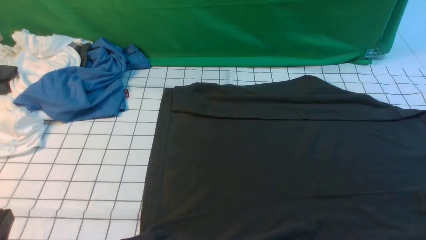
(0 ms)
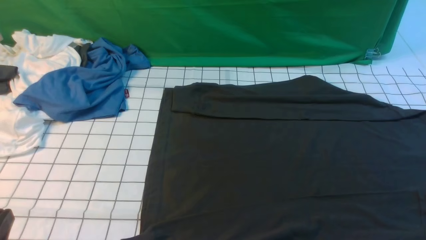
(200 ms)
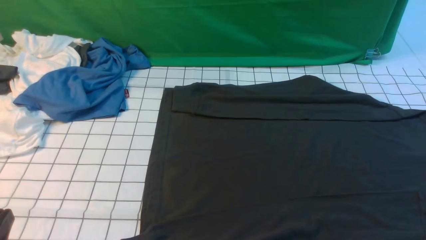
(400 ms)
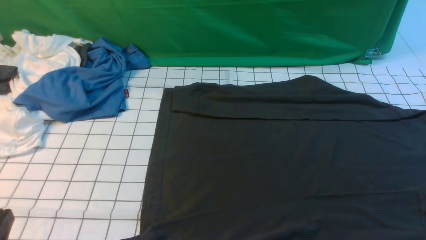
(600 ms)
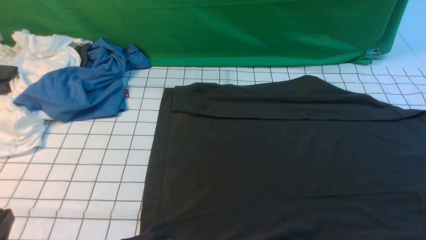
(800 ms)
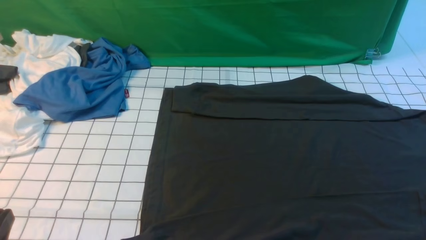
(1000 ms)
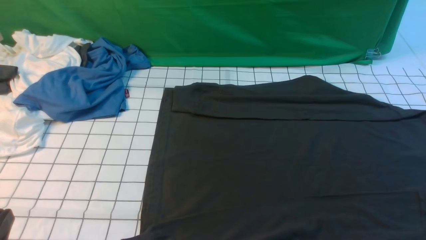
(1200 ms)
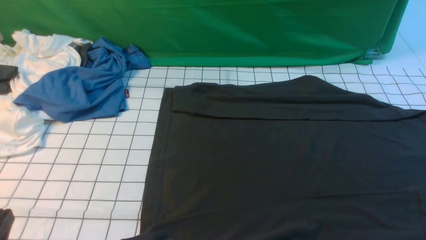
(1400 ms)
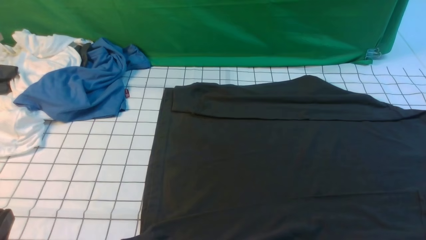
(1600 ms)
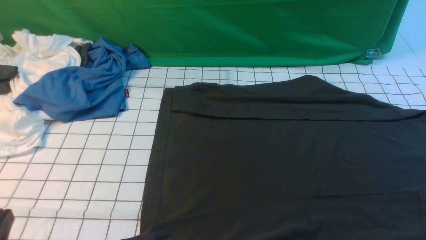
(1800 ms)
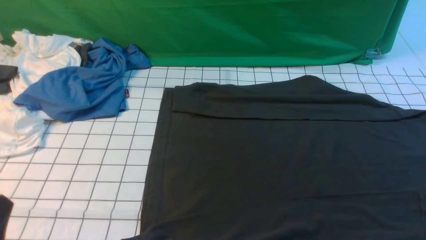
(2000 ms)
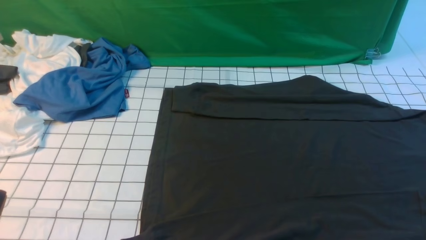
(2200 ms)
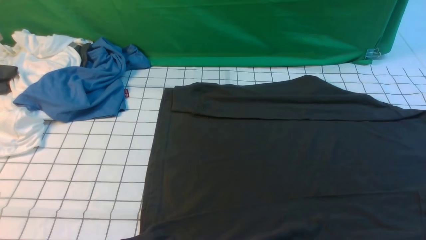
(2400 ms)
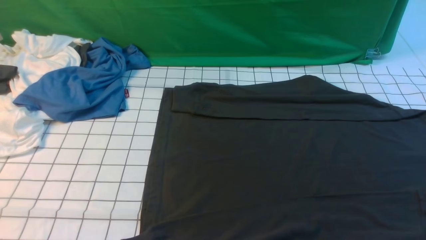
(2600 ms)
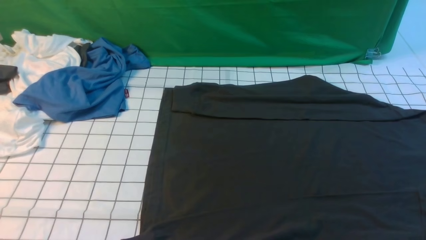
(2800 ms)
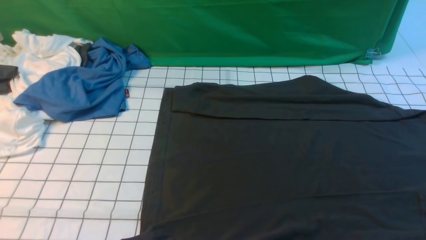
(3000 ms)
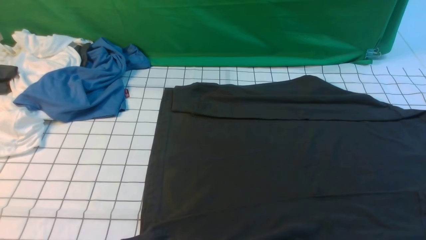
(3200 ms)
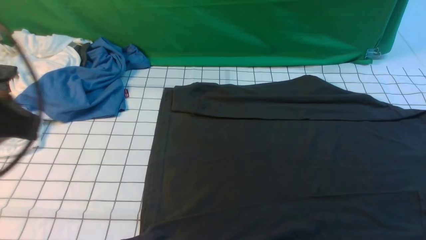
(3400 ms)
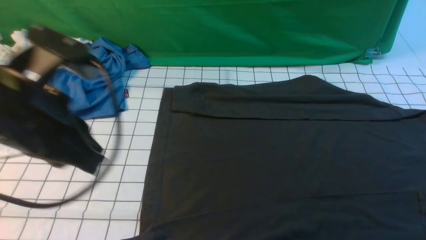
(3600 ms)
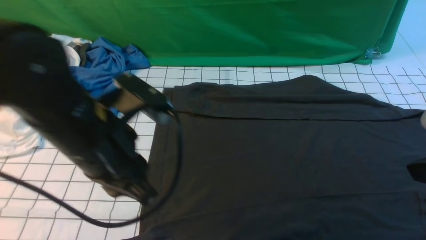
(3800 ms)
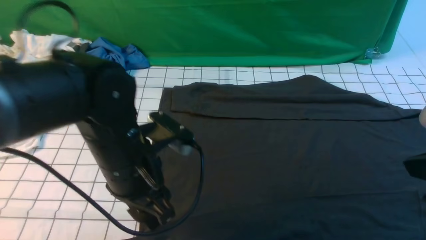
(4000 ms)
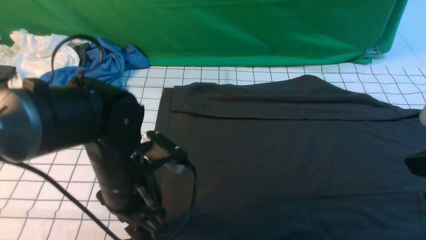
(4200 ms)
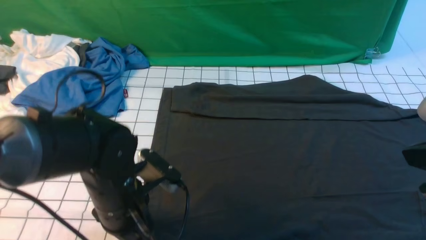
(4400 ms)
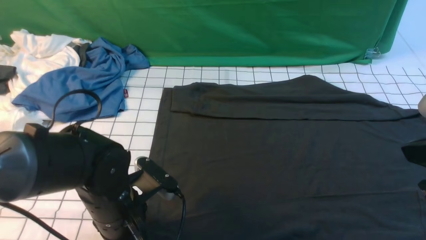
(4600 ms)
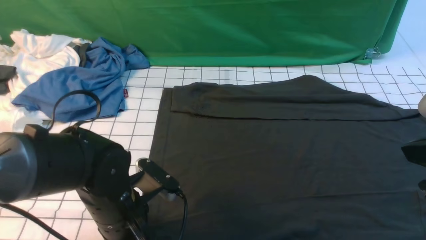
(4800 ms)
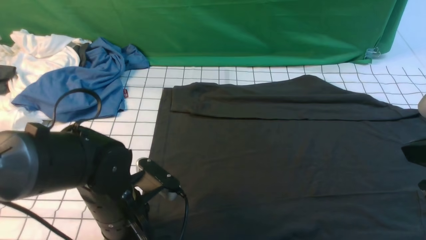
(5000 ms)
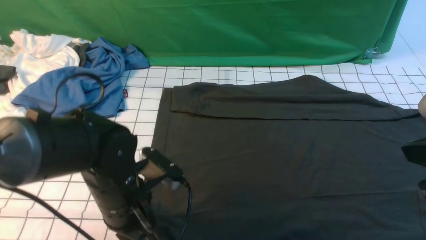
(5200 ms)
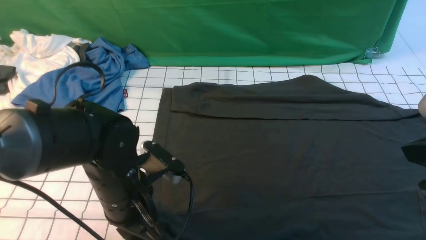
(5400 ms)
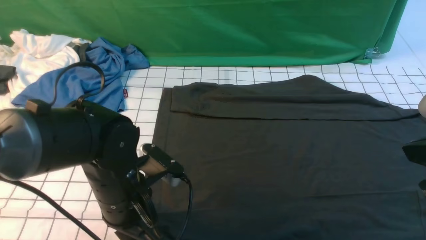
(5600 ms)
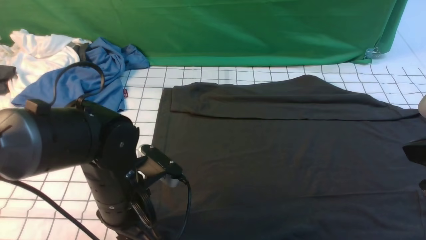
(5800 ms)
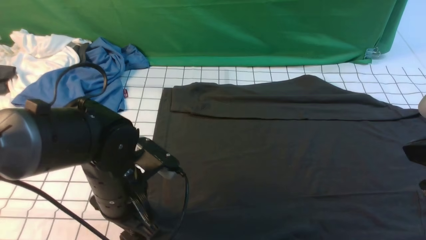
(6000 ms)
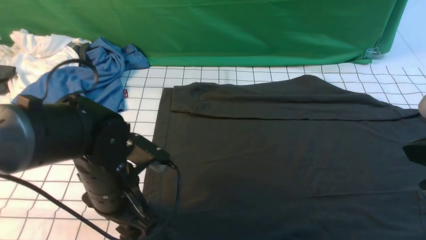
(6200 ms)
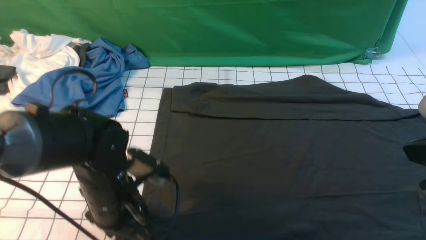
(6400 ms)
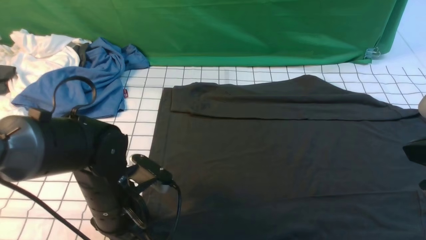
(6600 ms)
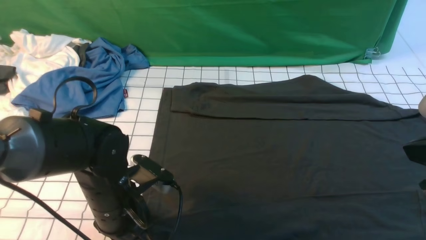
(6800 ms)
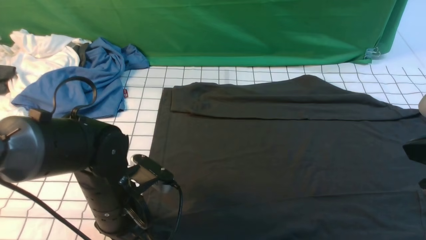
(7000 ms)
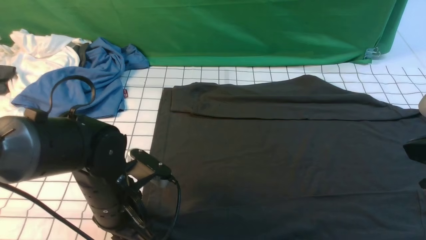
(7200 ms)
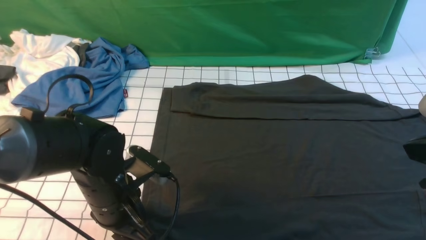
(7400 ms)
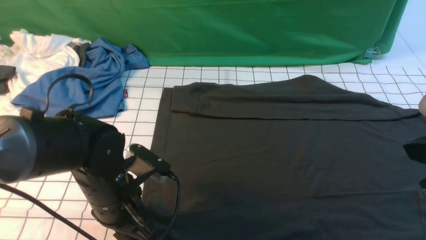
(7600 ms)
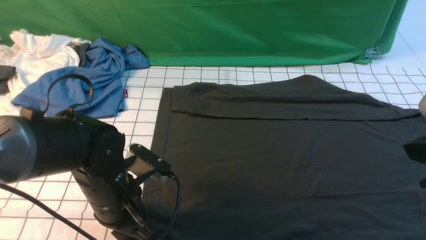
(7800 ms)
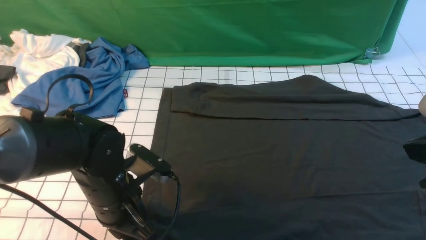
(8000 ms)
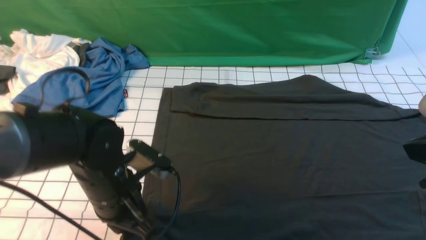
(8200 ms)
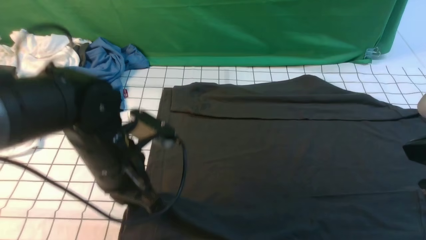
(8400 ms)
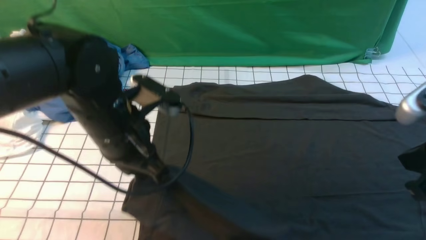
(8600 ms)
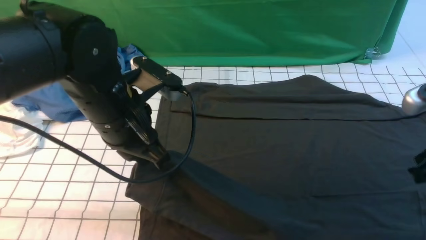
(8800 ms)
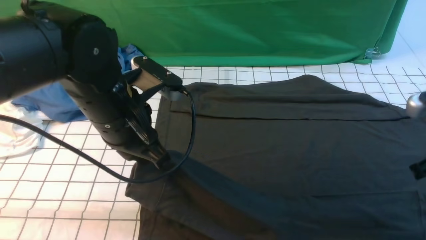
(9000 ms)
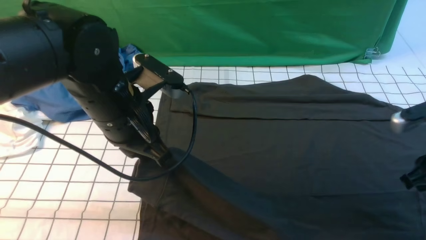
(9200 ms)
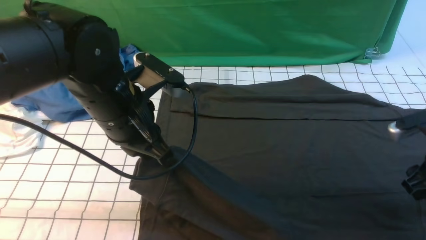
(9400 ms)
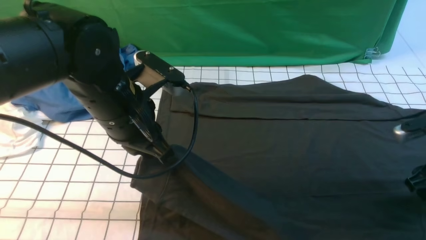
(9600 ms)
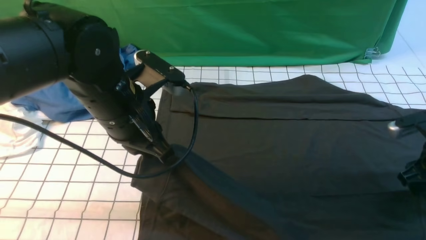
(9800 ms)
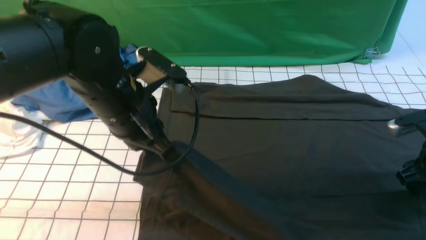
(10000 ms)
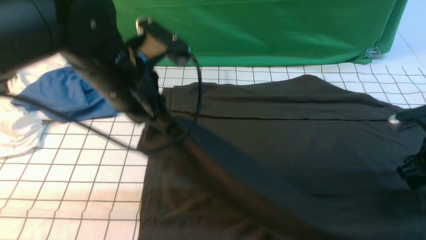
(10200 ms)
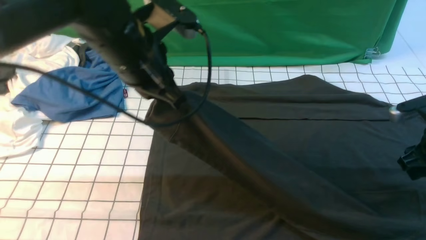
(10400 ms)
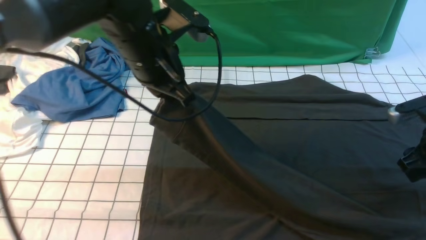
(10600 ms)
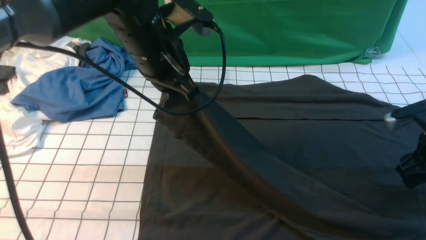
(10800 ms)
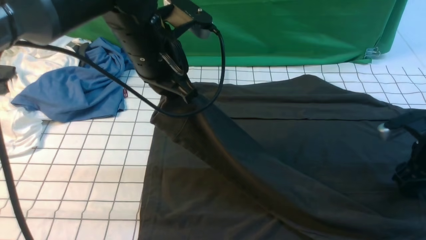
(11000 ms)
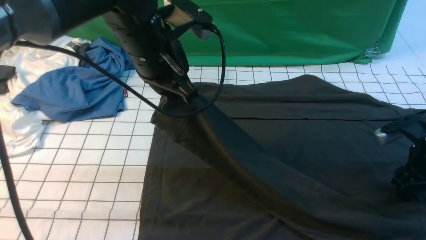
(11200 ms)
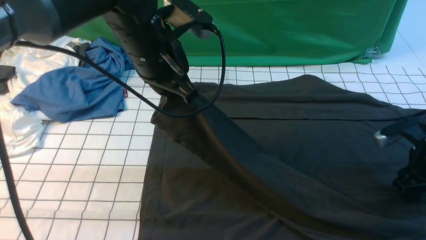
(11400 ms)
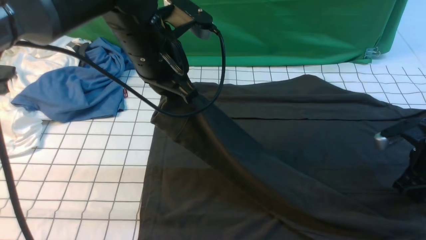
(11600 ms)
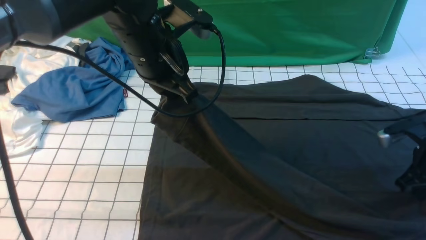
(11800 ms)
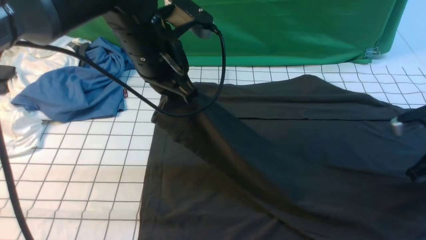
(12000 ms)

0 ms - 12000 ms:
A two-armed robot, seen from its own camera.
Step, 0 ms - 8200 ms: use the left arm to clamp the cuff closest to it.
0 ms - 1600 ms: Neither gripper changes place.
3000 ms - 4400 ms: The right gripper shifts roughly 15 cm forward, upward and to the left, while the left gripper shifts some 25 cm downward, forward and to the right, and opens.
4400 ms - 6000 ms: The left gripper closes, then reopens.
6000 ms - 7600 ms: The grippers make only small movements.
7600 ms - 9000 ms: The left gripper shifts approximately 10 cm upward, and closes its fingers. Meanwhile the right gripper is displaced forward, downward and to the right by about 15 cm.
9000 ms - 10400 ms: The right gripper is displaced forward and downward by about 10 cm, and opens, while the left gripper changes place by roughly 5 cm.
10400 ms - 12000 ms: The right gripper closes its fingers.

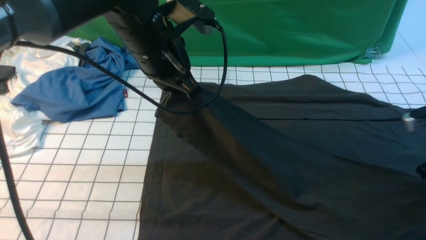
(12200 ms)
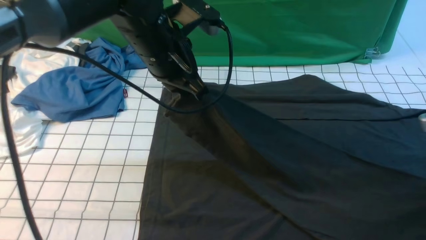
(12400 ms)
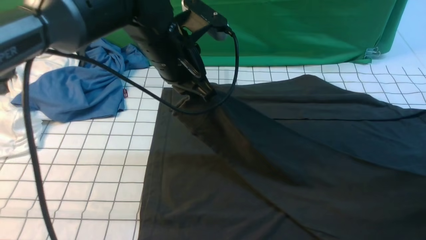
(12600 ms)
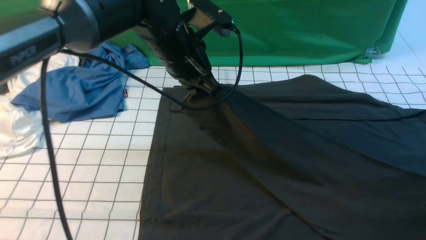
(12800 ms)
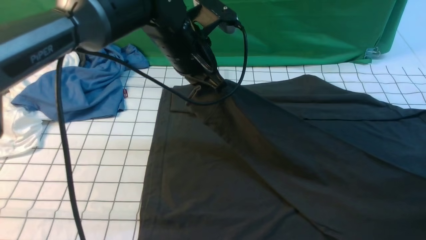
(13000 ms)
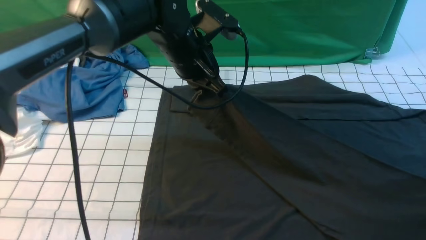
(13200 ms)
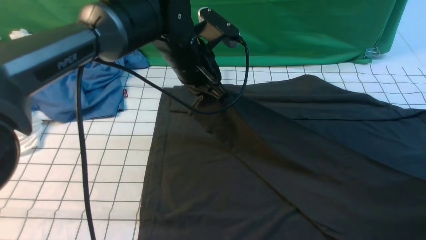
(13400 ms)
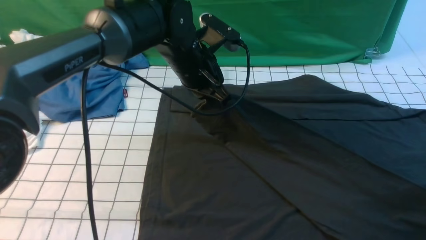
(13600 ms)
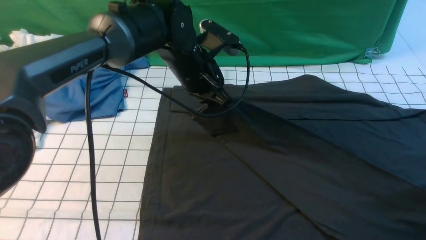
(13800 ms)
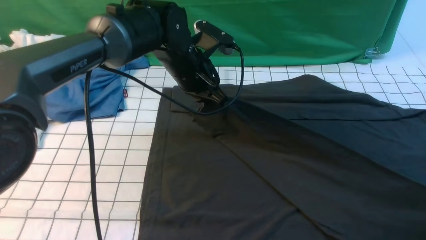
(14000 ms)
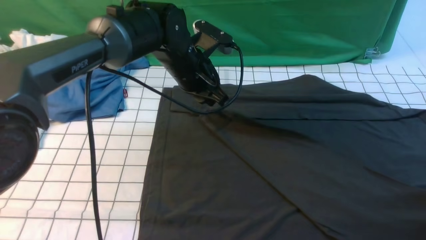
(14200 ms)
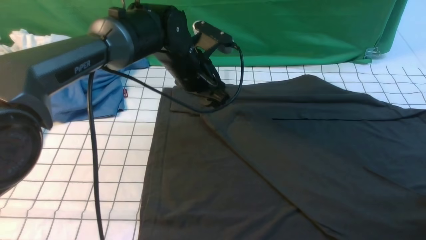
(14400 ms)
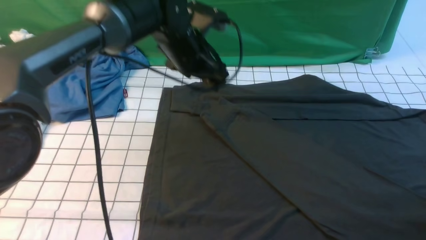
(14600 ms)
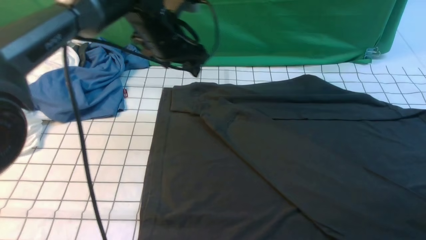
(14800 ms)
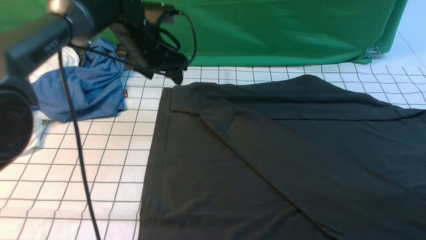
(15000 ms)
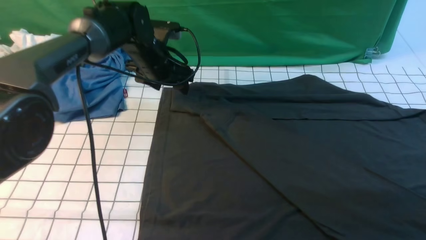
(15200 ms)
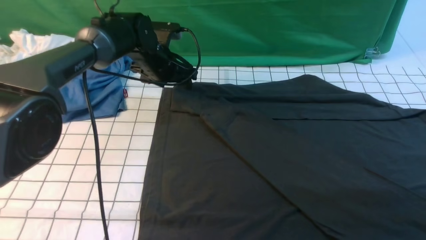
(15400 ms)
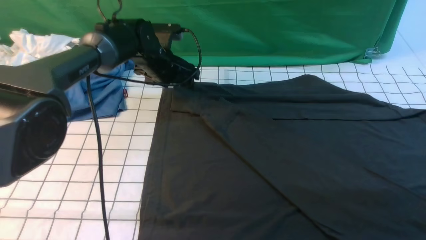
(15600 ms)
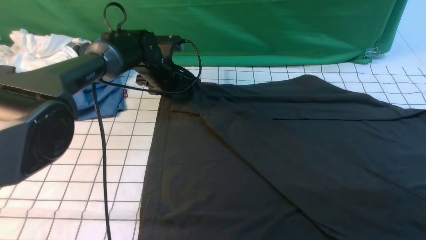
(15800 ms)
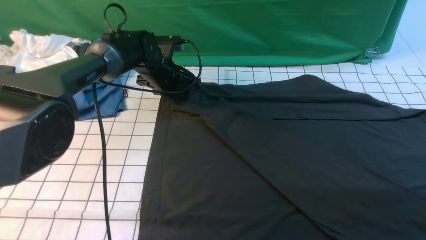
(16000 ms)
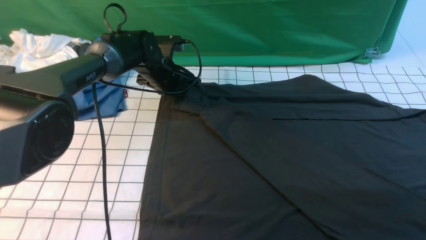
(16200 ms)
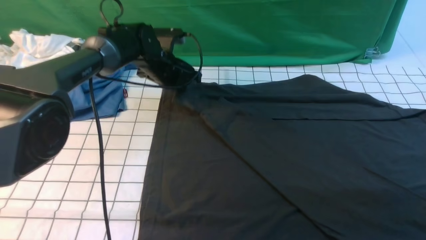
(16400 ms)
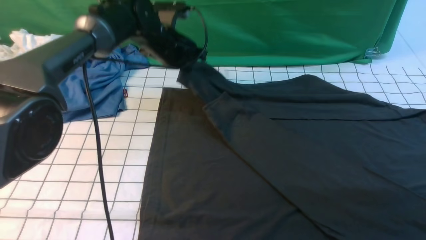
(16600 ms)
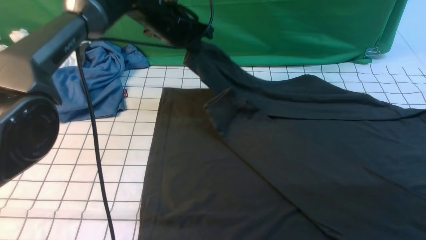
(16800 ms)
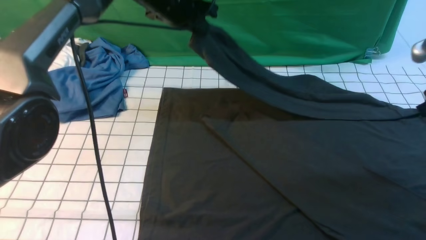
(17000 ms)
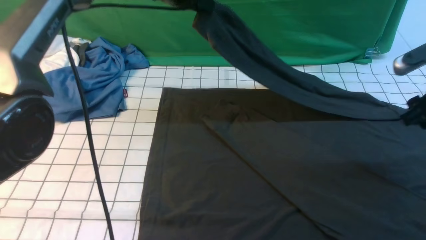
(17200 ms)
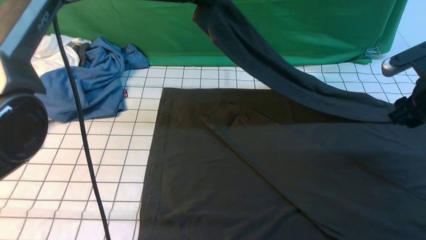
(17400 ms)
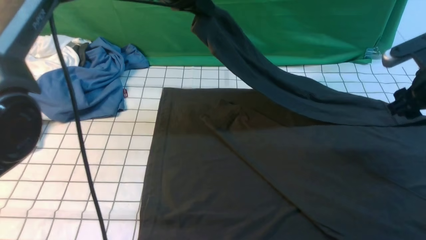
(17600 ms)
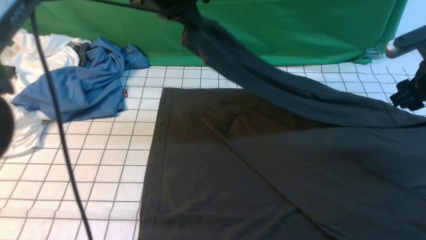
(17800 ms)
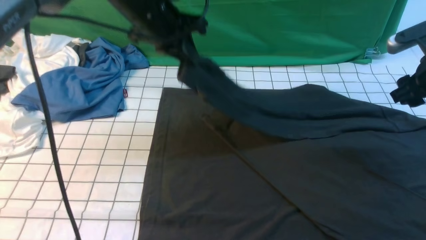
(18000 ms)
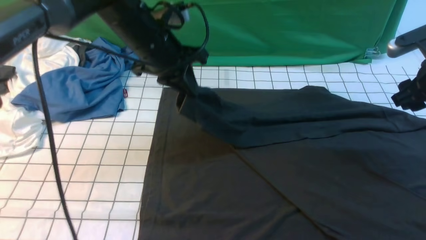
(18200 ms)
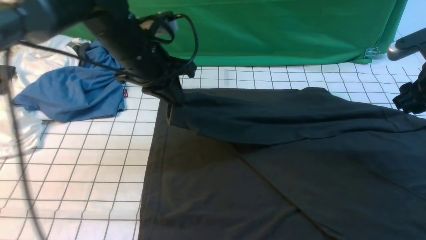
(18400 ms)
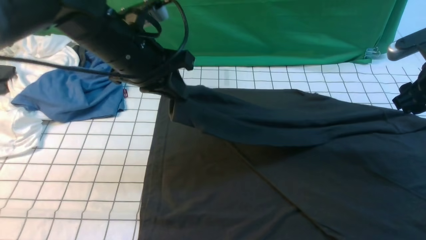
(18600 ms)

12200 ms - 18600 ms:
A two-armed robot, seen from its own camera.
Step, 12200 ms - 14600 ms: use the left arm to drag and place the cuff at the centered position on the left edge of the fabric.
Step, 14800 ms - 16400 ms: use the left arm to clamp the cuff farthest from it.
12200 ms - 13800 ms: The right gripper changes place by about 5 cm. Meanwhile the left gripper shifts some 10 cm downward and forward.
13800 ms - 15400 ms: The right gripper is displaced upward by some 10 cm, and opens, while the left gripper goes about 15 cm forward, to the left and downward, and opens.
15400 ms - 17000 ms: The left gripper travels upward by about 15 cm, and closes up.
17000 ms - 18600 ms: The left gripper travels backward by roughly 15 cm, while the right gripper shifts by some 5 cm.
